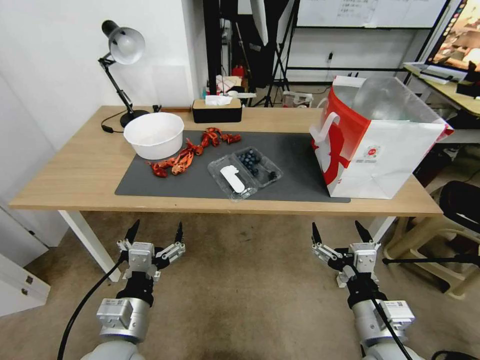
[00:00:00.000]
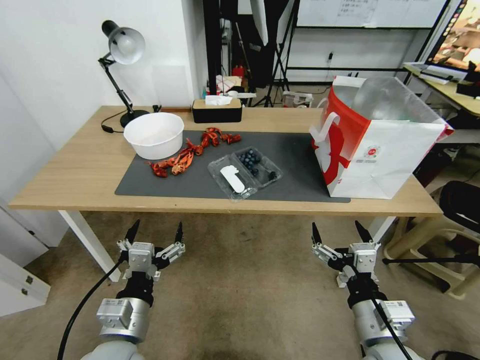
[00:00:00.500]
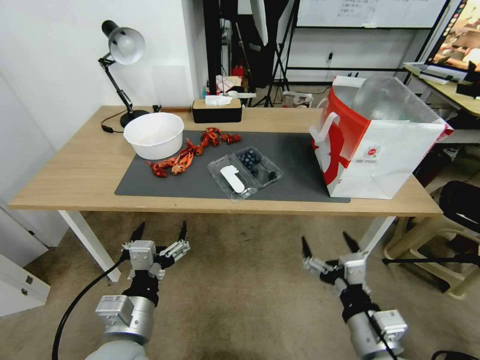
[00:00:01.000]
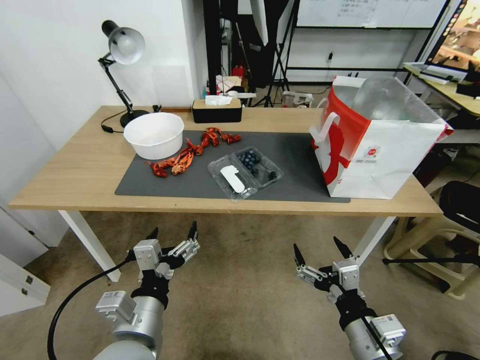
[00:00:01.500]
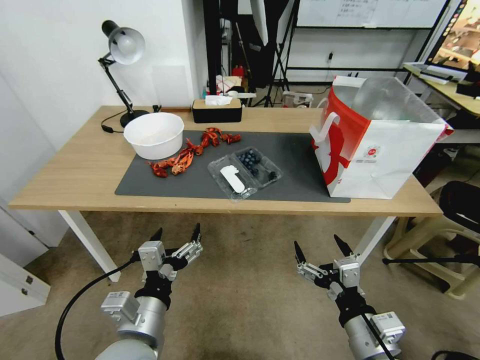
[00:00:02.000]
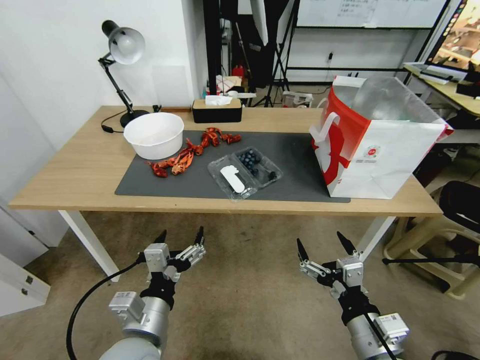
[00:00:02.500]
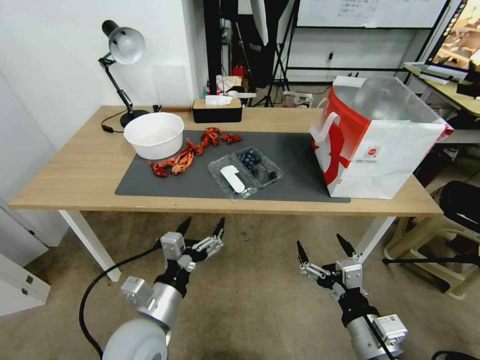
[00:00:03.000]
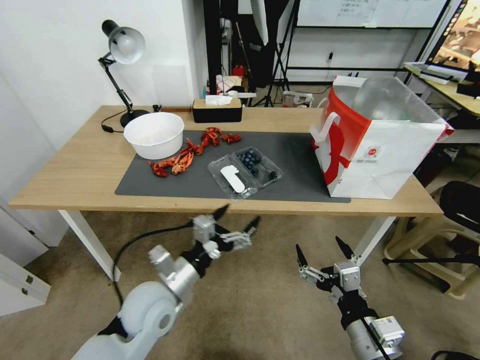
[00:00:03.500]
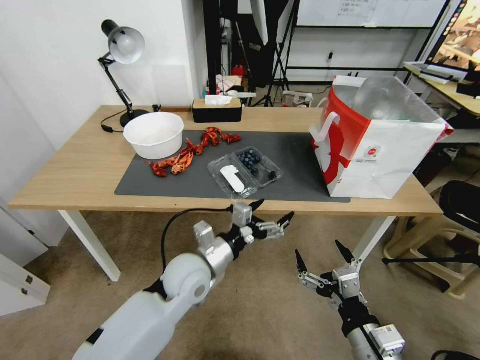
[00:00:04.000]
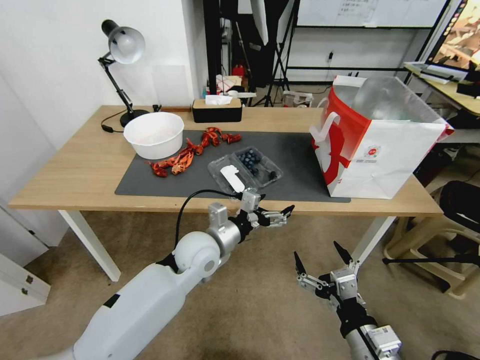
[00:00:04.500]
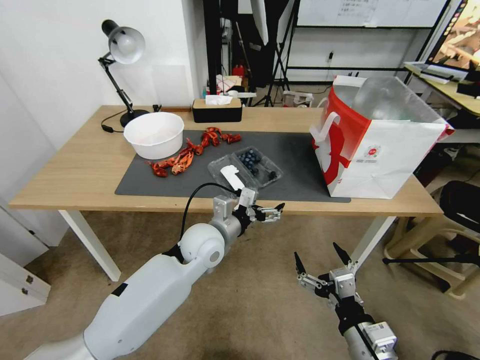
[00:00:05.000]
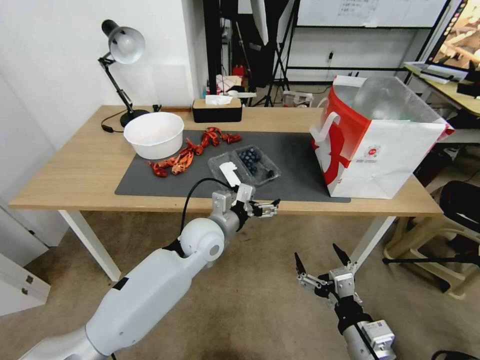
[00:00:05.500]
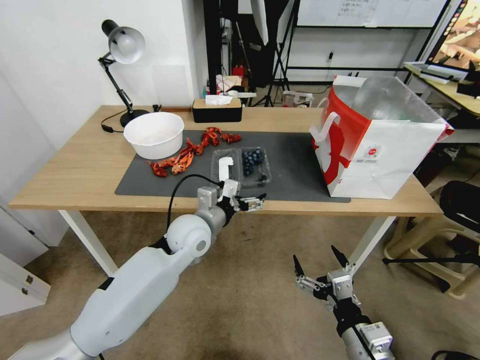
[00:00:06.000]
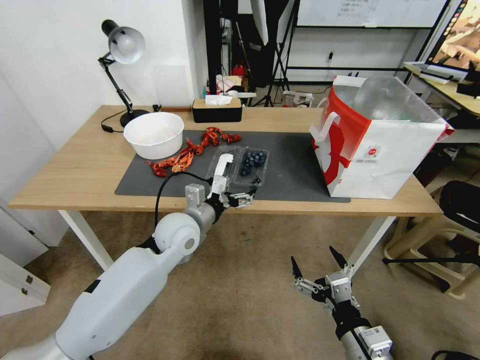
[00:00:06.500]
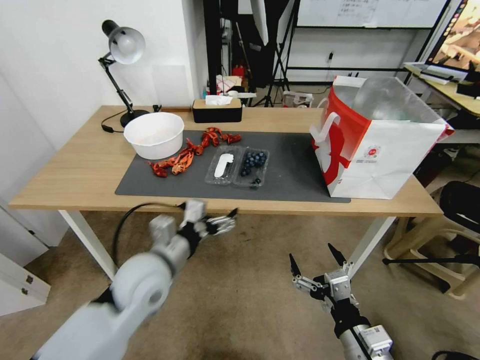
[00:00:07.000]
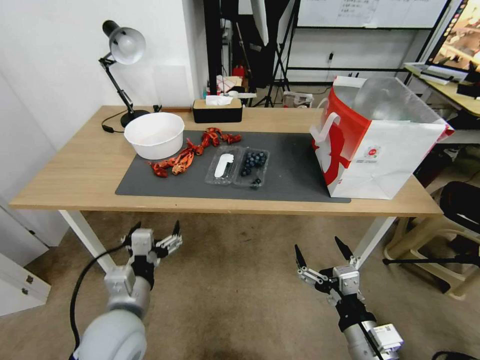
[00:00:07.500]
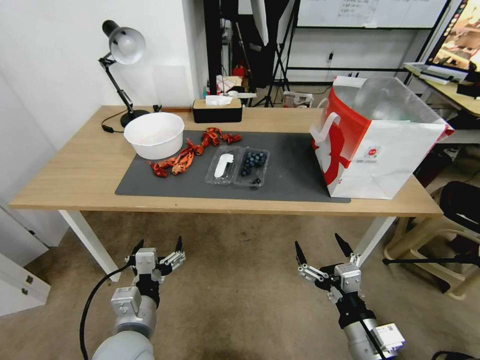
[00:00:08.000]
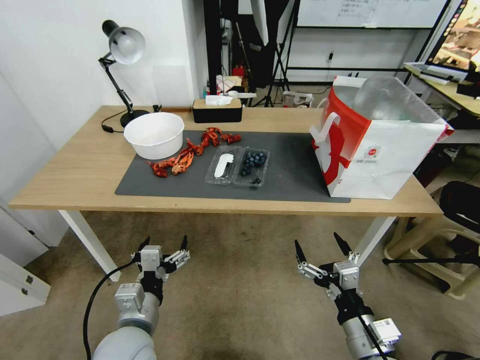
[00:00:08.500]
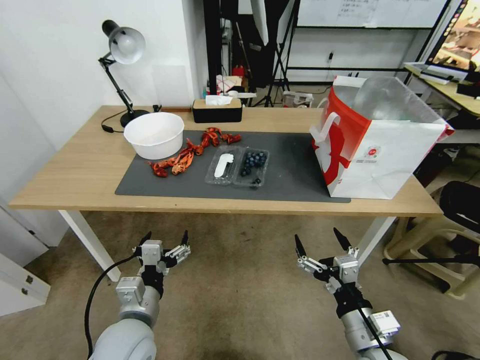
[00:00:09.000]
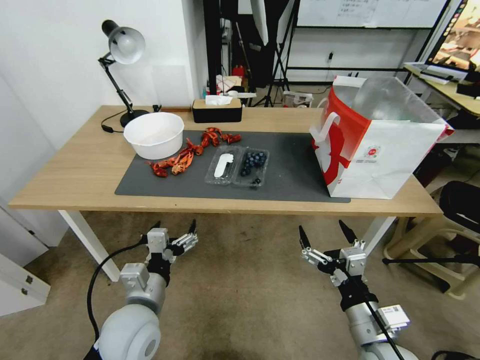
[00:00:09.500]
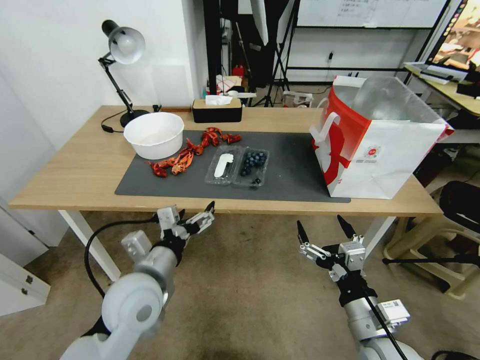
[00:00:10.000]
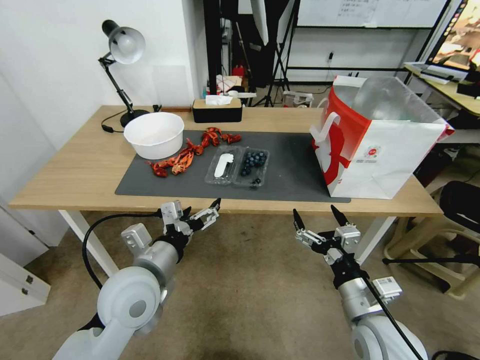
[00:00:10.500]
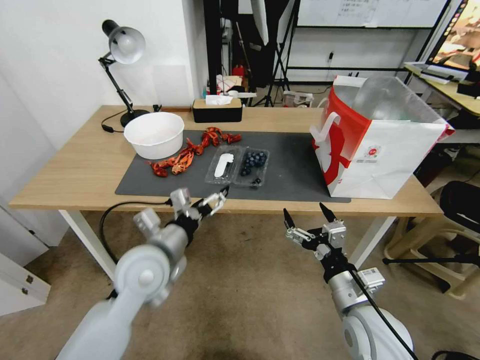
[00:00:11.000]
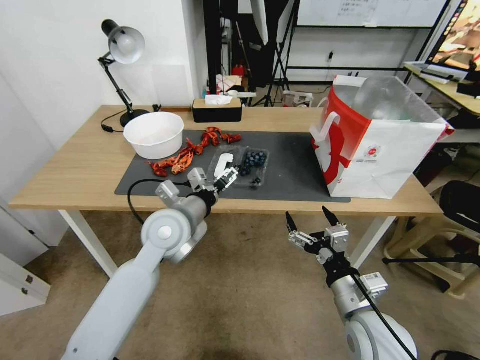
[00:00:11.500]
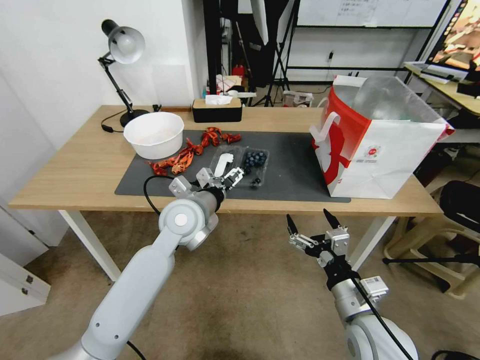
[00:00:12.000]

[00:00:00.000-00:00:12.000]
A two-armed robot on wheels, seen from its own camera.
Task of the whole recording: Close the takeout container lid, then place the container into the takeout bag.
00:00:02.000 to 00:00:04.000: The left gripper goes some 15 cm forward and to the right.
00:00:04.000 to 00:00:06.000: The left gripper moves forward, approximately 10 cm.
00:00:06.000 to 00:00:08.000: The left gripper moves backward, roughly 20 cm.
00:00:08.000 to 00:00:10.000: The left gripper is displaced forward and upward by approximately 10 cm.
00:00:10.000 to 00:00:12.000: The left gripper moves forward and to the right, approximately 15 cm.

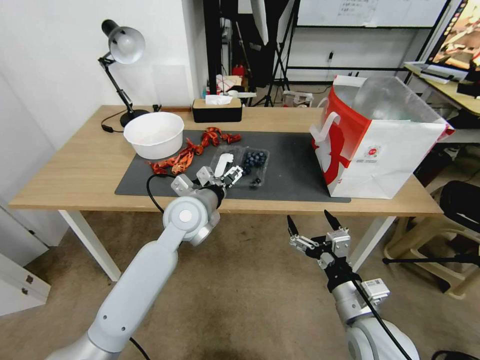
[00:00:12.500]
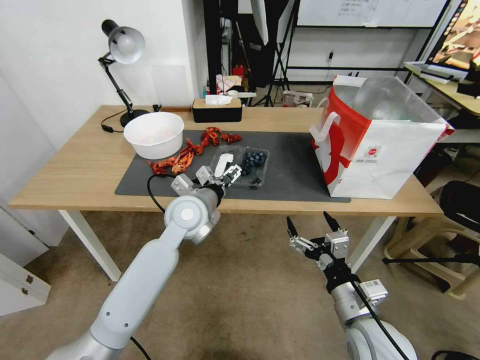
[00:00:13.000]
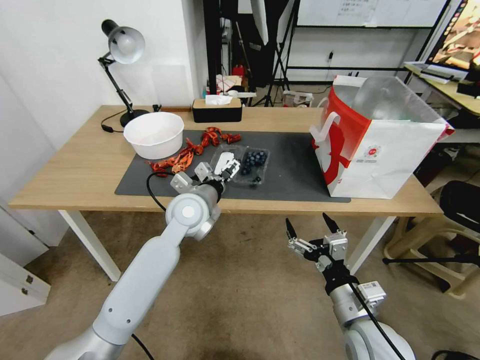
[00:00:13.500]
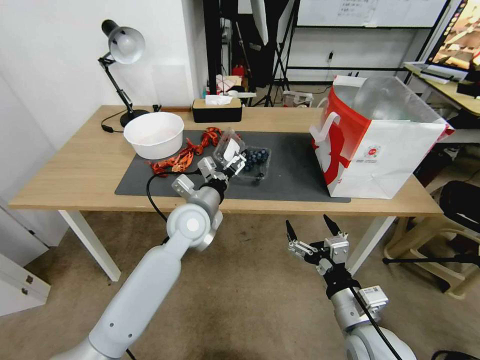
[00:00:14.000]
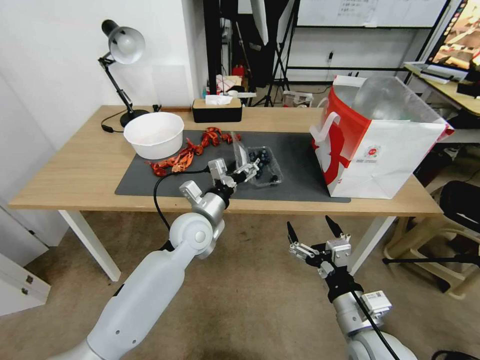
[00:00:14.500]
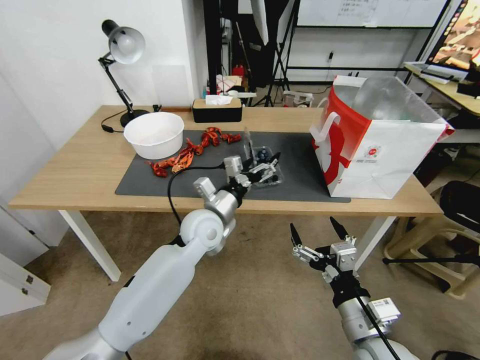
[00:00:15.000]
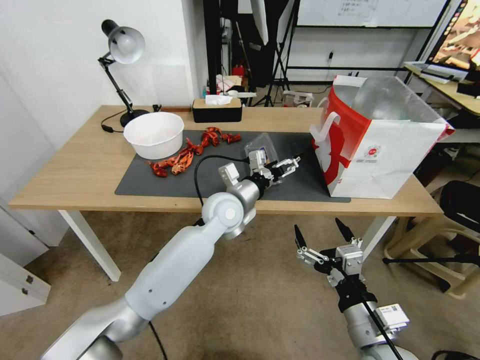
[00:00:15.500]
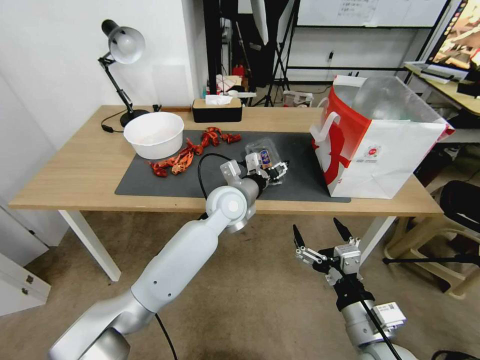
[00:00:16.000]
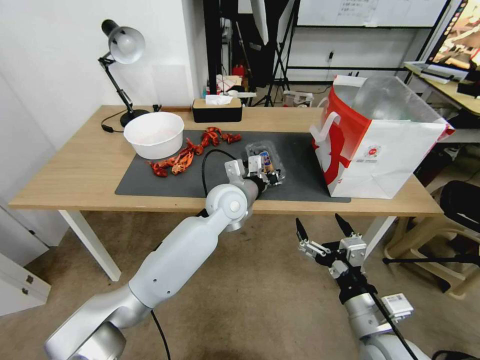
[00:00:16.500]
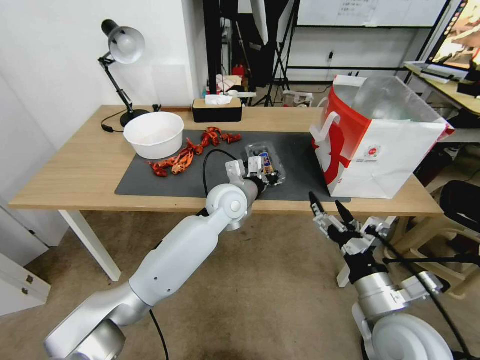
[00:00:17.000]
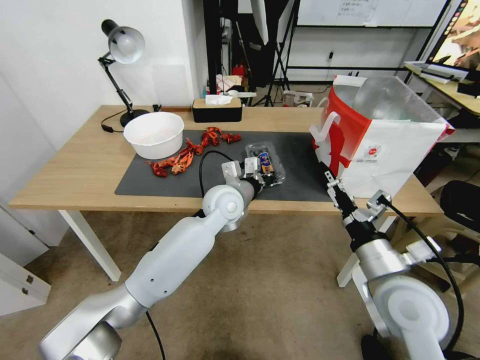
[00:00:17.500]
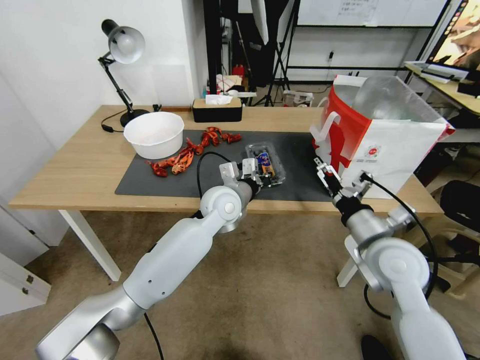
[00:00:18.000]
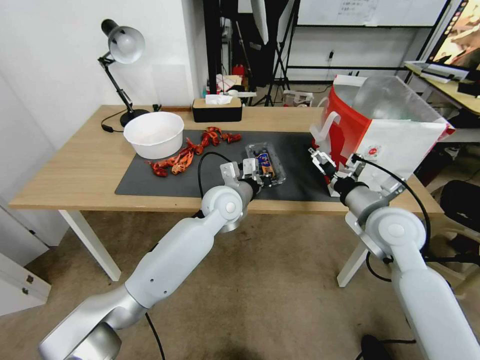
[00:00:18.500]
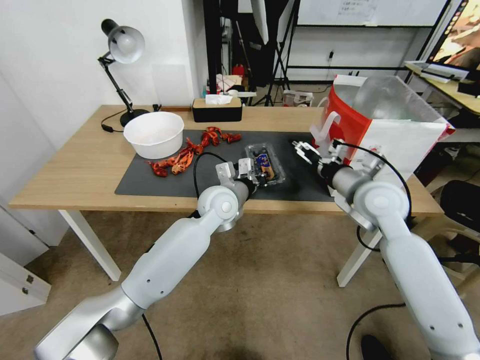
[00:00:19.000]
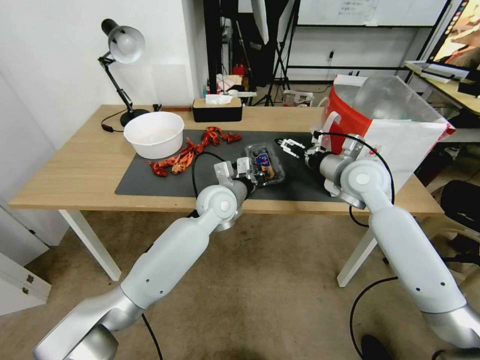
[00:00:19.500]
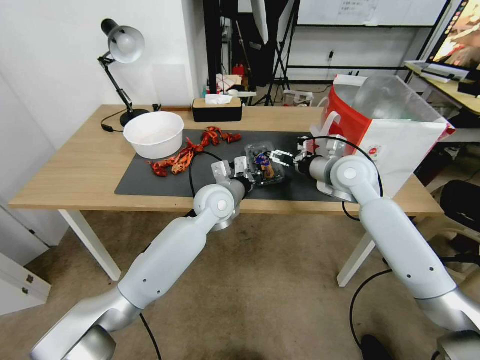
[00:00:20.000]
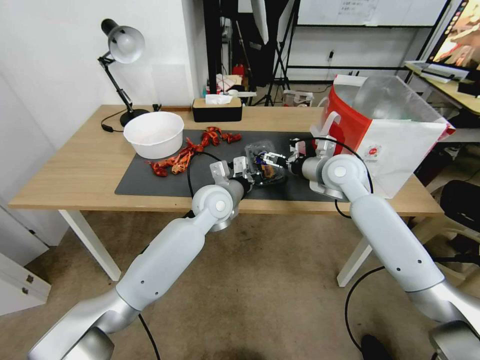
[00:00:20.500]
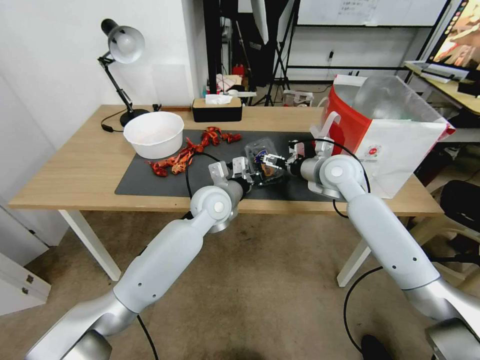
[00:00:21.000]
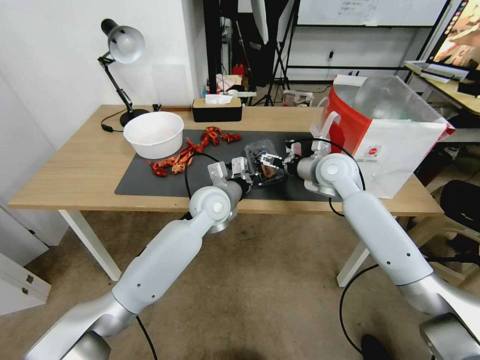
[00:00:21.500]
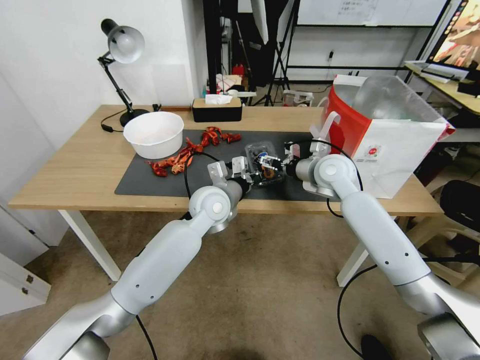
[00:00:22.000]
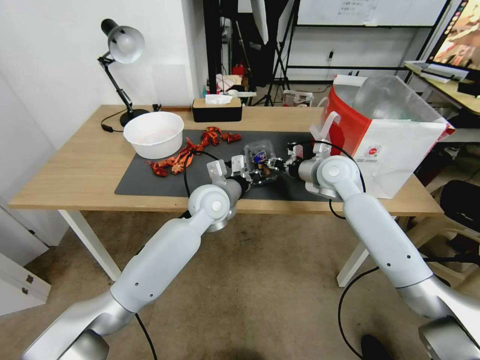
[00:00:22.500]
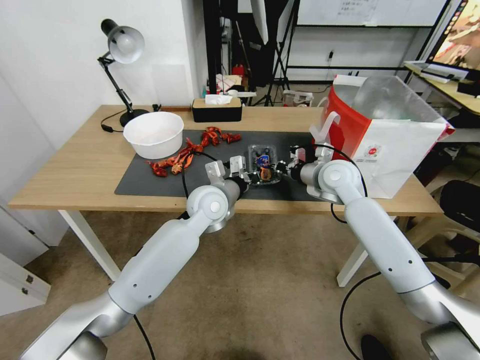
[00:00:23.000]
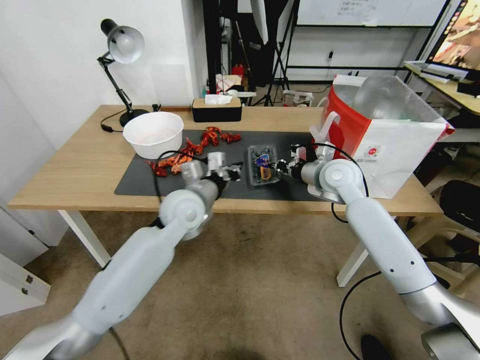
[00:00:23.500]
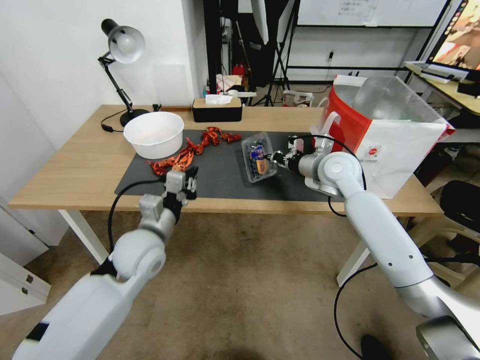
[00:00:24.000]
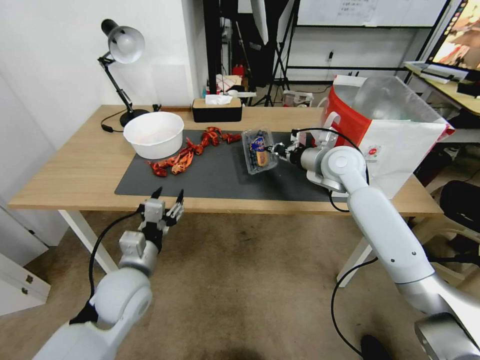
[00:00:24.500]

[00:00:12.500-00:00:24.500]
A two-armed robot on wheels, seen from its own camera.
Task of the whole recording: Close the takeout container lid, then place the container into the takeout bag.
00:00:12.500 to 00:00:14.500: The left gripper moves downward, roughly 5 cm.
00:00:14.500 to 00:00:16.500: The left gripper moves to the right and forward, about 10 cm, and closes up.
00:00:16.500 to 00:00:18.500: The right gripper moves forward, about 20 cm.
00:00:18.500 to 00:00:20.500: The right gripper is displaced forward and to the left by roughly 15 cm.
00:00:20.500 to 00:00:22.500: The right gripper closes up.
00:00:22.500 to 00:00:24.500: The left gripper is displaced backward and to the left by some 25 cm, and opens.

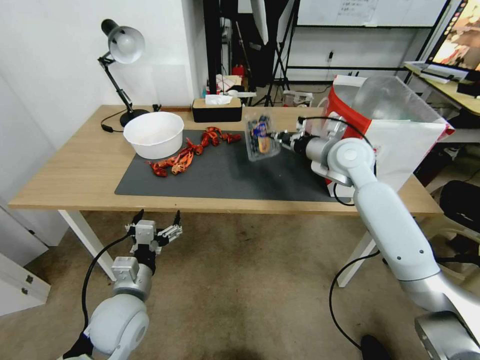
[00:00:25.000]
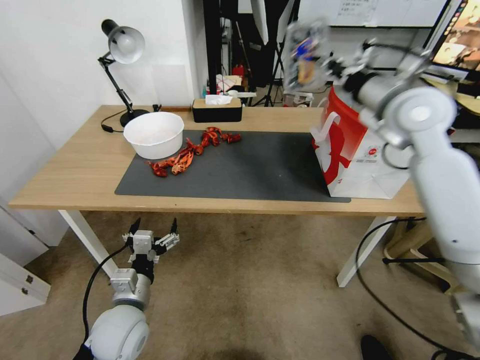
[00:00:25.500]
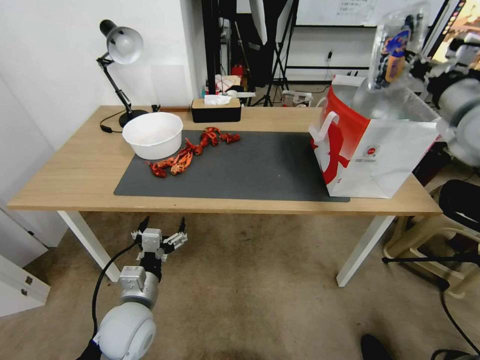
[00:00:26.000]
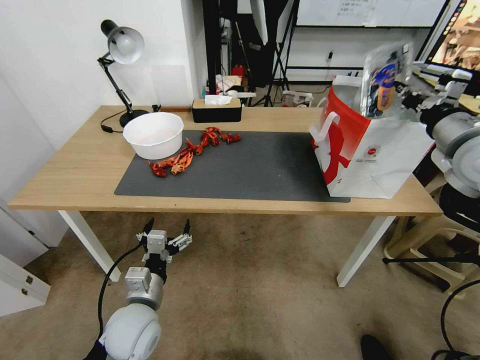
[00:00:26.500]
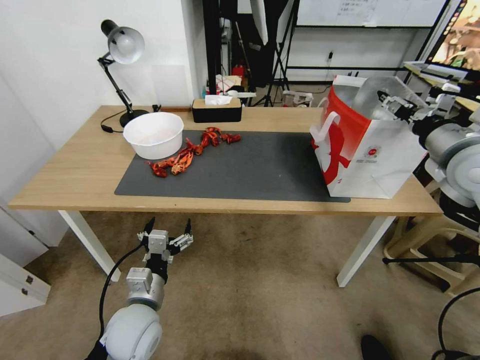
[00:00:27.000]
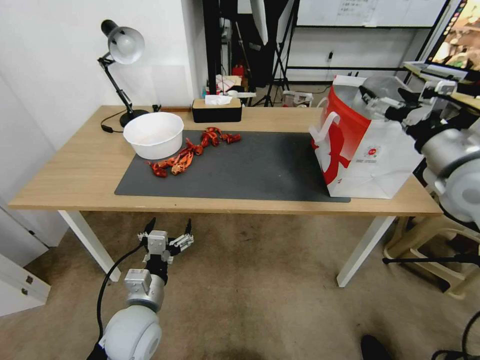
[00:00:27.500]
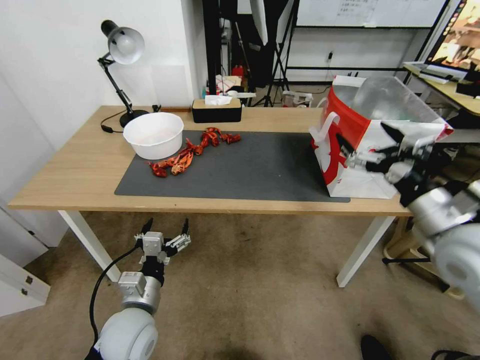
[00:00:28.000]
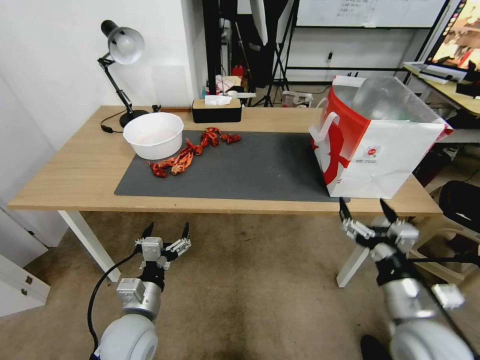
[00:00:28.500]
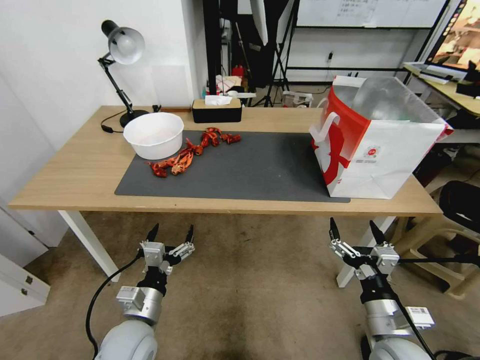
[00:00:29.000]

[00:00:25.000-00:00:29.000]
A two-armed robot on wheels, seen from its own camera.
Task of the whole recording: Close the takeout container lid, then place the container into the takeout bag.
00:00:25.000 to 00:00:27.000: The right gripper travels to the right, backward and upward by some 20 cm, and opens.
00:00:27.000 to 00:00:29.000: The right gripper shifts about 35 cm downward, backward and to the left, and opens its fingers.
